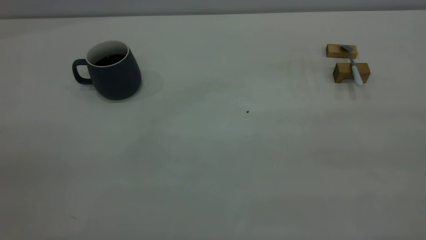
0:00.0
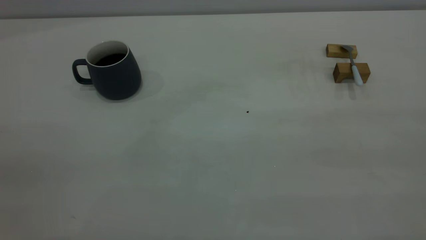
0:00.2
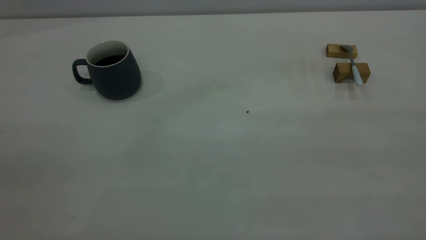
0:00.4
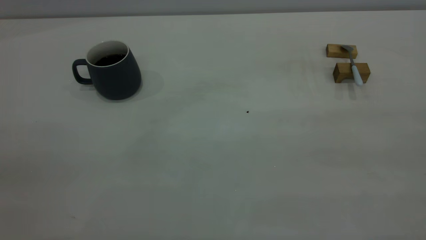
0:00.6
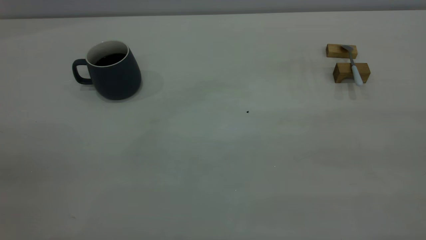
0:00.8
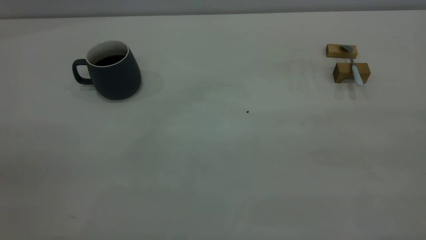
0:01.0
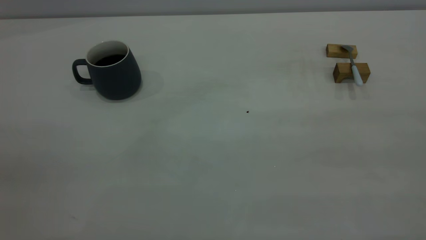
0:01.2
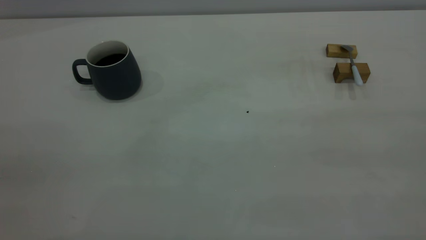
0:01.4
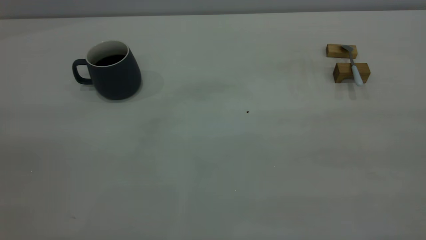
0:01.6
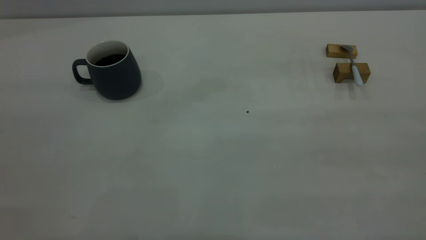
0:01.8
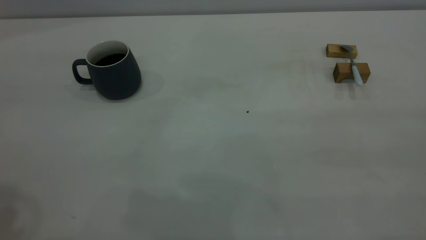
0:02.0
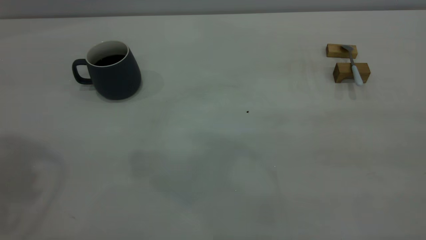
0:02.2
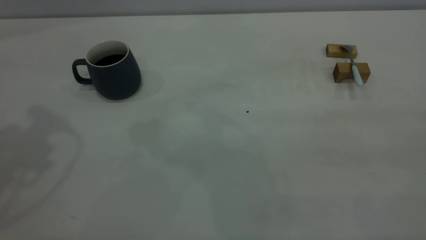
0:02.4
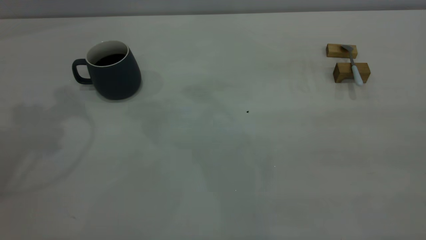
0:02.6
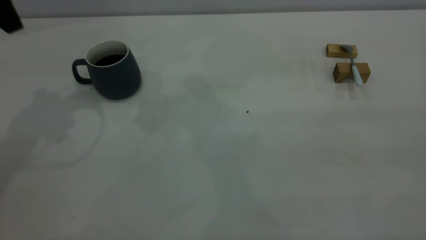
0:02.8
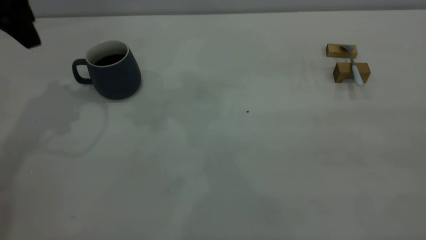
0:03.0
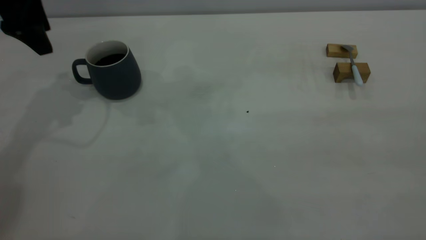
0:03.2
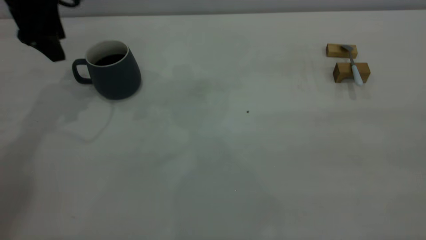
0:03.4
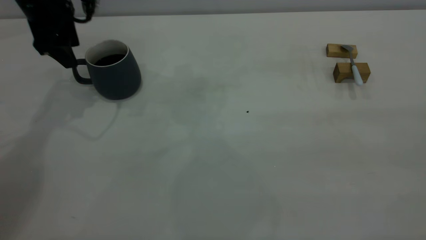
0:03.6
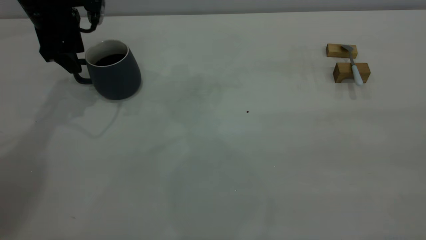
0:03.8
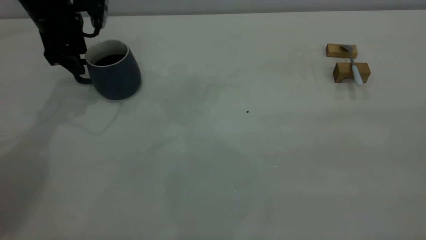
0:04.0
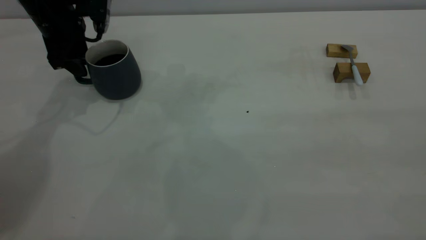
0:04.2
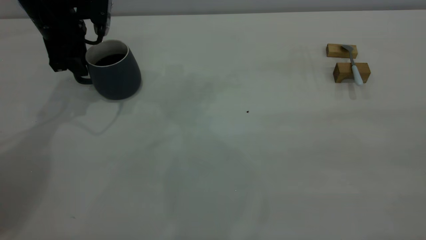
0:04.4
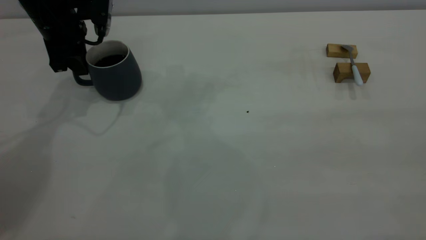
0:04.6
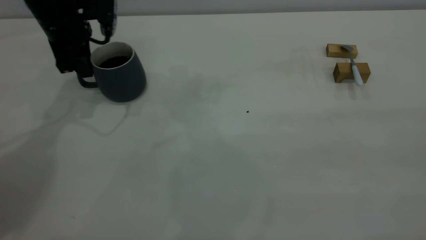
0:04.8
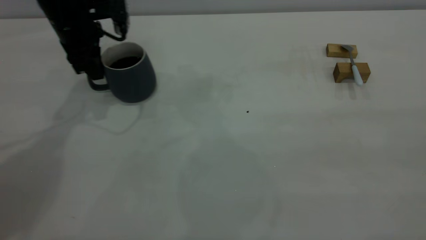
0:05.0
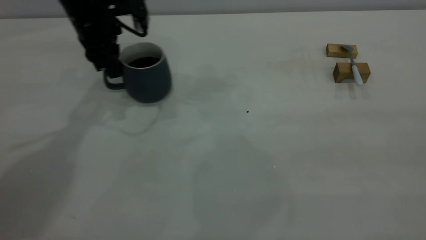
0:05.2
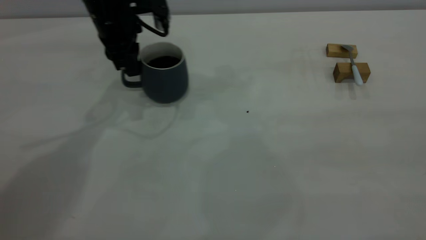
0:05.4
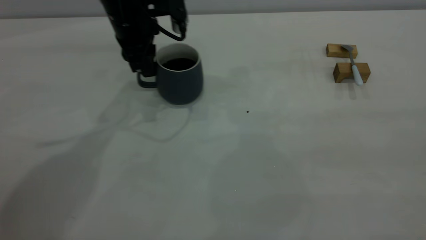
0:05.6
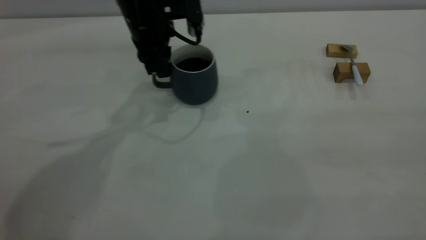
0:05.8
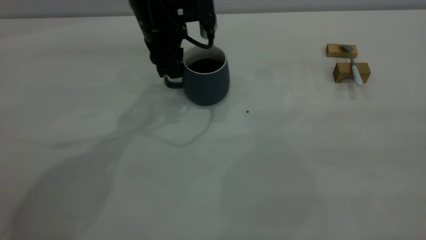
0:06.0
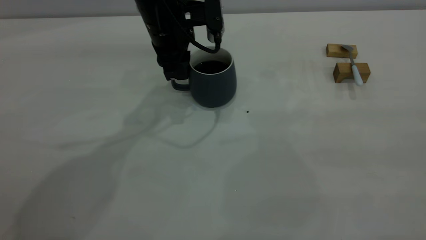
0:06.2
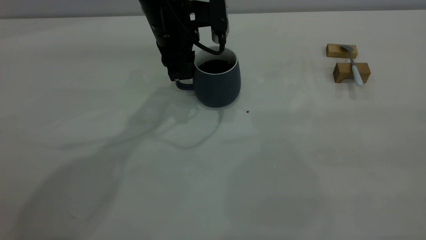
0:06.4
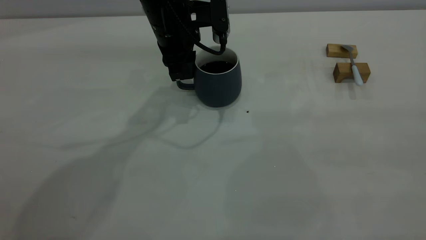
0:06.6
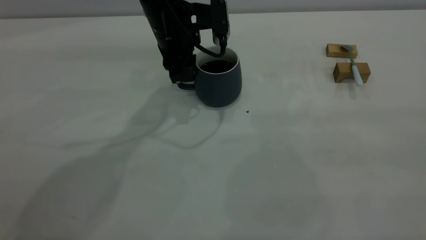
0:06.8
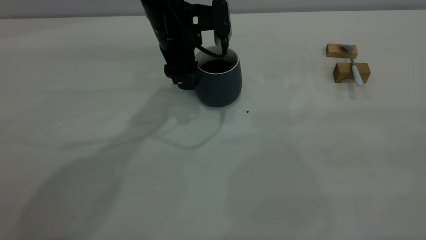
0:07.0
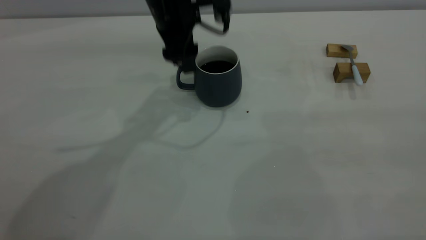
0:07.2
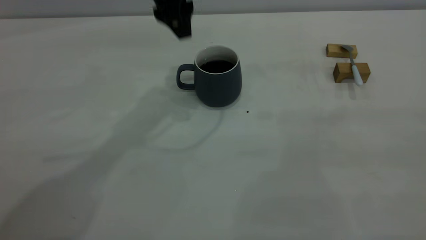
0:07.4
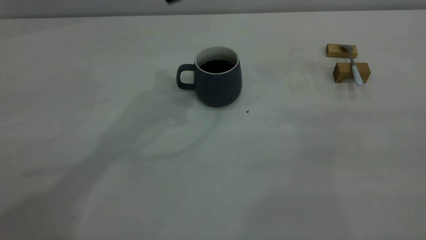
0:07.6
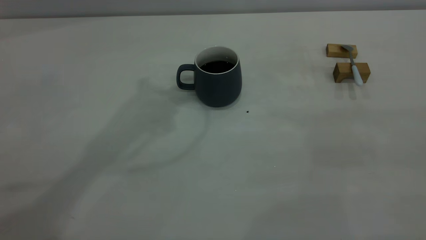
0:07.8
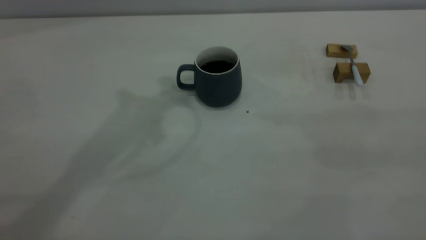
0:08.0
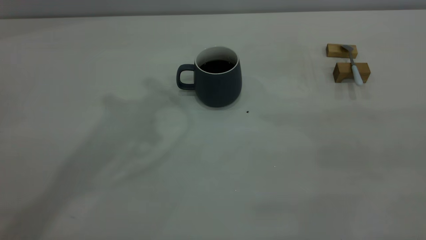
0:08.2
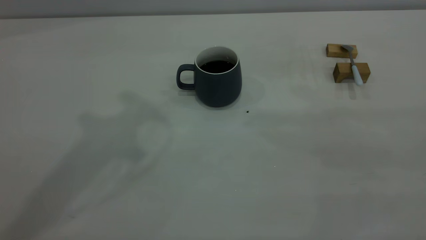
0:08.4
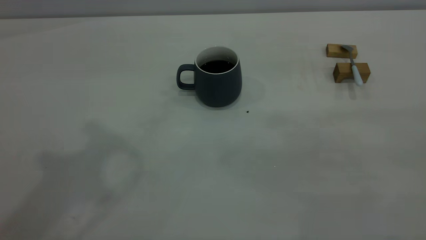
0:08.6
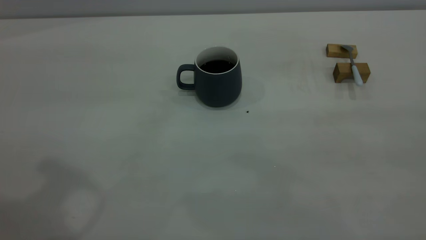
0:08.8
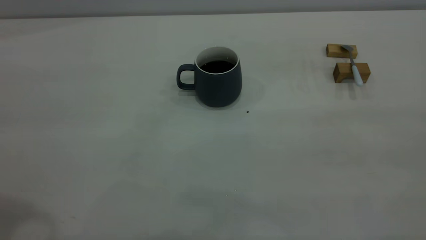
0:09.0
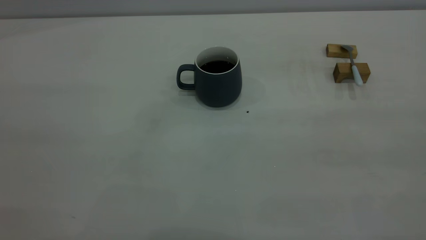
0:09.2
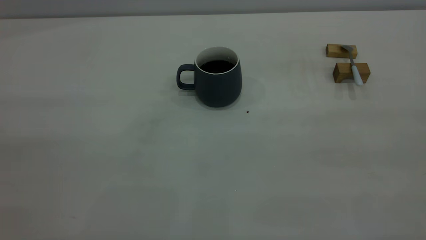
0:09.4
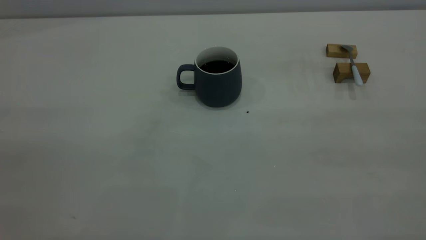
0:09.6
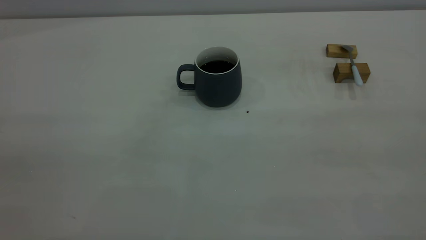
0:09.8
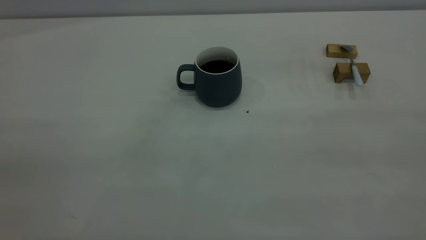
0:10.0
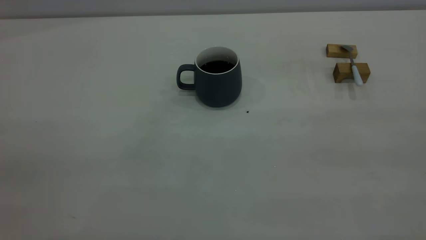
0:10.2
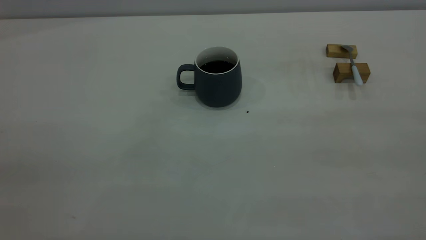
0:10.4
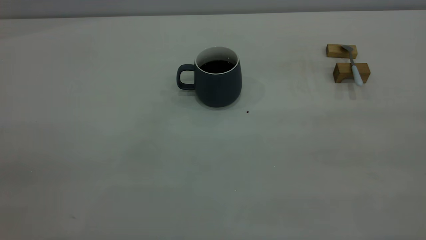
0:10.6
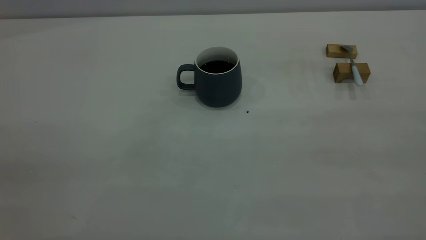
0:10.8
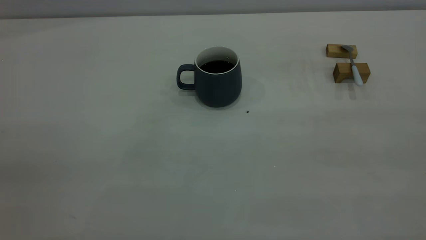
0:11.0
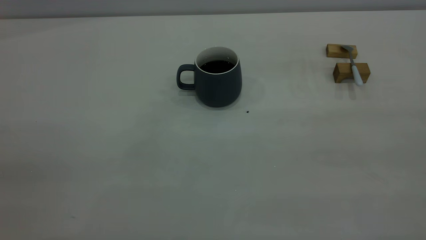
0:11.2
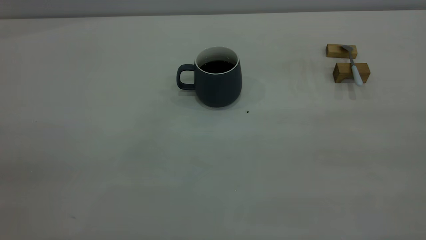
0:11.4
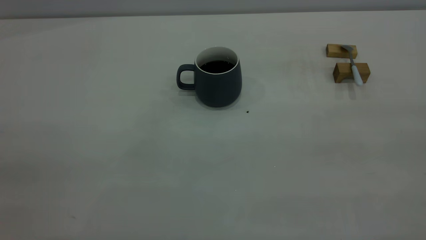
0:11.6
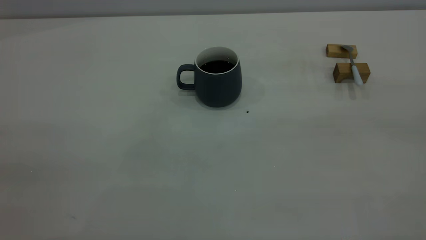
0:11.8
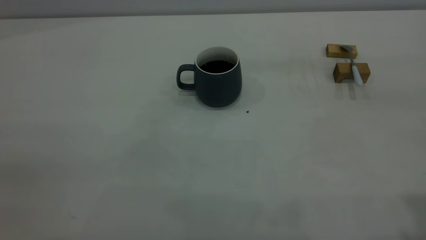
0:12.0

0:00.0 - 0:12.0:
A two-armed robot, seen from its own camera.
Step, 0:00.0 - 0:07.2: Move the cup with coffee to the center of view.
0:01.6 - 0:03.0: The left gripper shifts some 40 cm forward.
0:03.0 - 0:04.4: The left gripper is displaced downward and forward by approximately 10 cm, and closes.
0:04.4 - 0:06.0: The left gripper goes some 20 cm to the right.
0:06.0 - 0:07.6: The left gripper shifts roughly 15 cm upward, and opens.

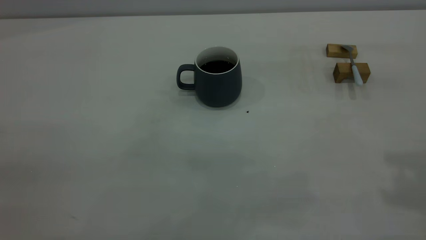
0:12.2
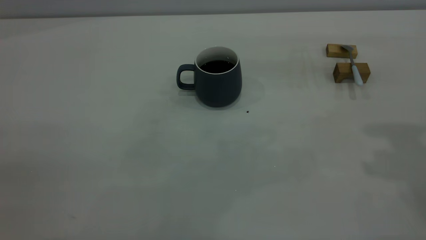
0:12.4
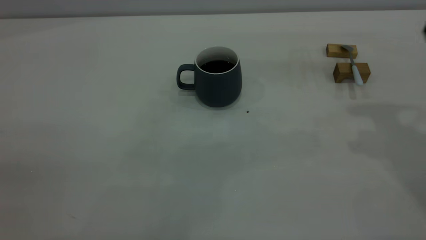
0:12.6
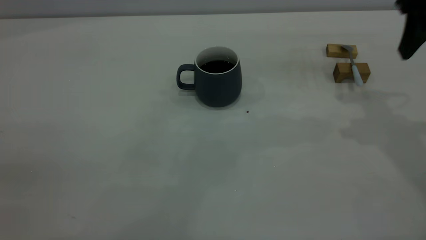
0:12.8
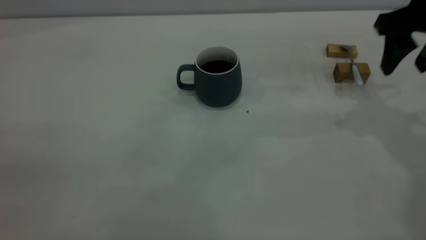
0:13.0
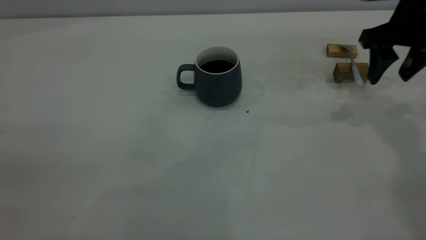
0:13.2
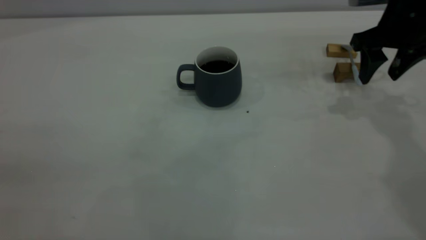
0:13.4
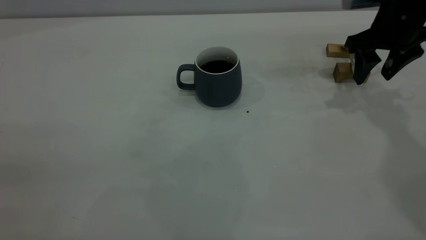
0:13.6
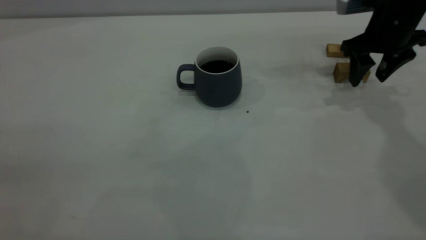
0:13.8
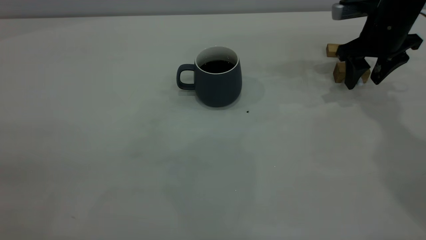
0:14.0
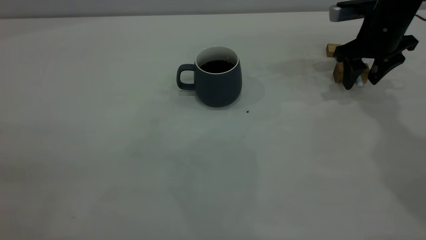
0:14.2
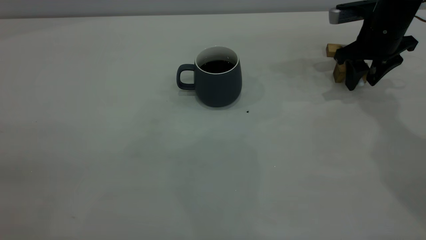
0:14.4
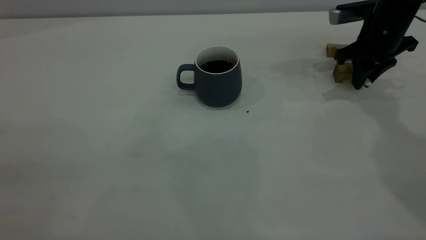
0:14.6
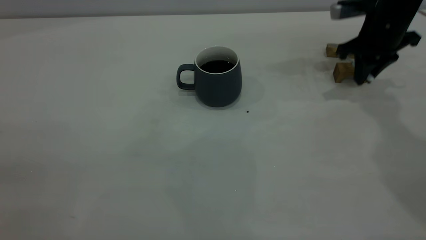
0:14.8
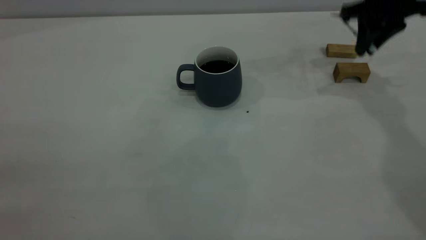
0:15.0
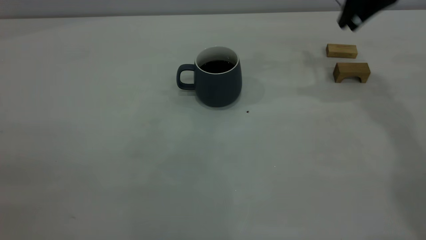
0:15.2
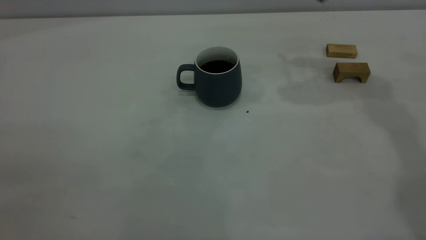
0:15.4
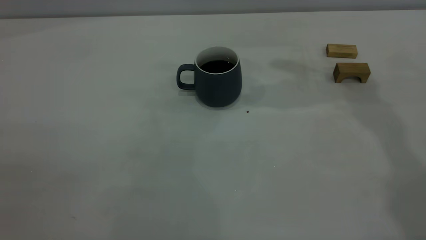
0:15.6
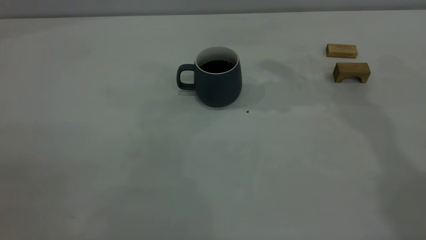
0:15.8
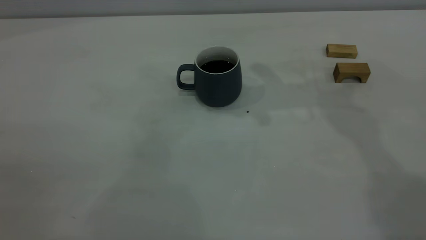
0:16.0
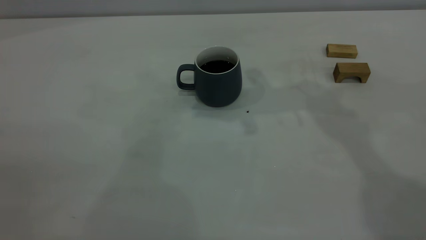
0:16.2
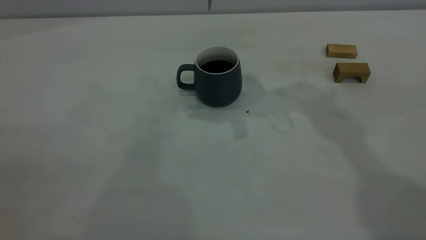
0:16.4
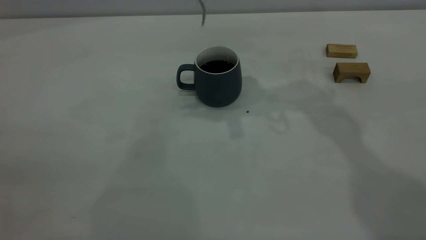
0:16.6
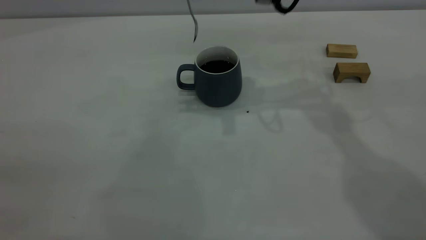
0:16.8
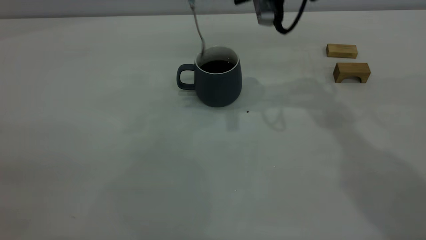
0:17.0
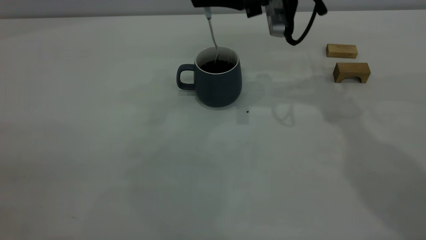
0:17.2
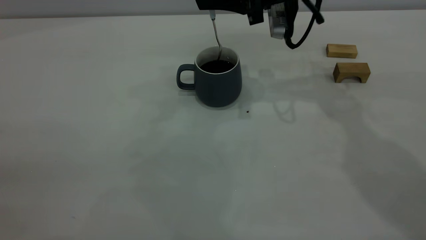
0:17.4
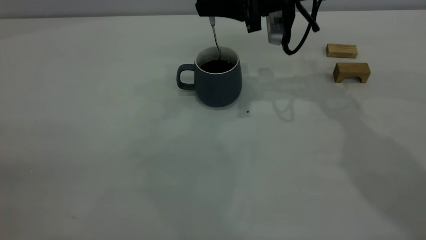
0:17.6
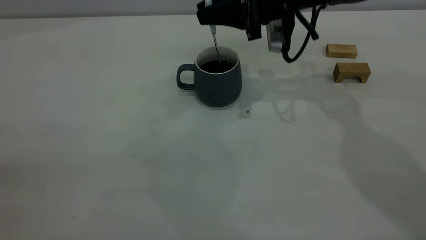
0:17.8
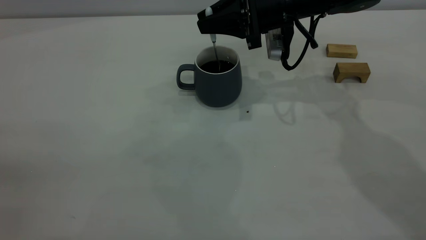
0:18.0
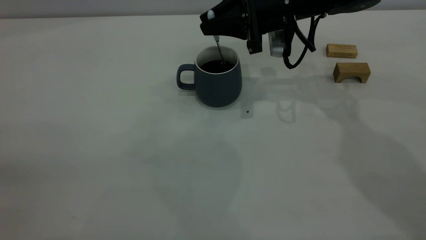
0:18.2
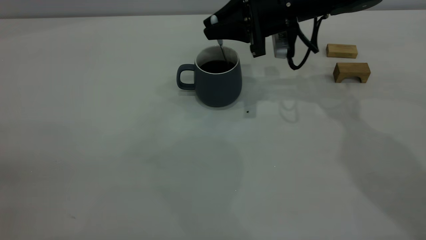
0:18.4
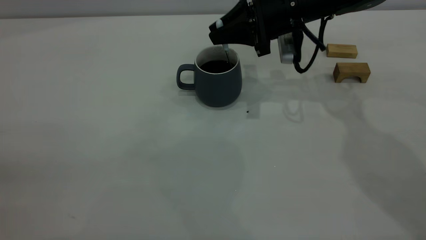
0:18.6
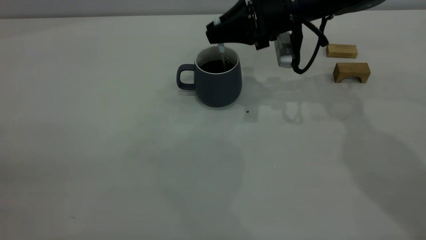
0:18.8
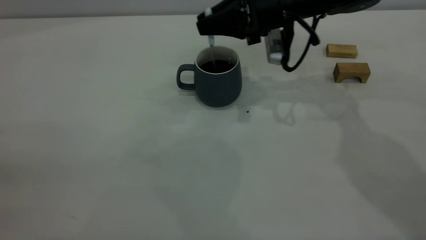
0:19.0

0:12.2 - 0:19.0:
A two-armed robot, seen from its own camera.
Step, 0:12.2 - 0:15.0: Pick up the spoon.
0:12.2 - 0:13.6: The right gripper goes about 30 cm forward and downward.
0:13.6 - 0:15.0: The right gripper goes roughly 5 cm upward, and closes.
0:15.0 - 0:16.2: The right gripper goes approximately 20 cm to the left and upward.
0:16.2 - 0:17.6: The right gripper goes roughly 15 cm downward.
0:17.6 - 0:19.0: There are only small adjustments of the grippers.
